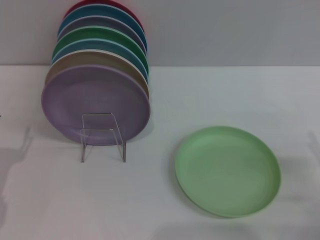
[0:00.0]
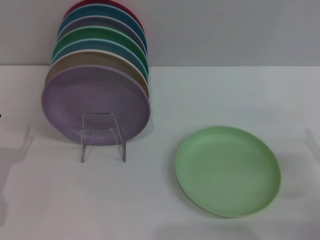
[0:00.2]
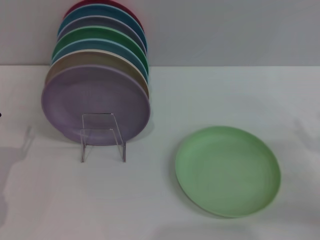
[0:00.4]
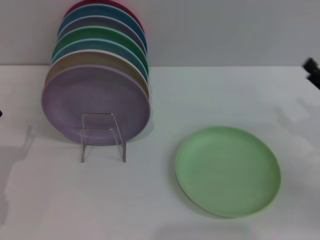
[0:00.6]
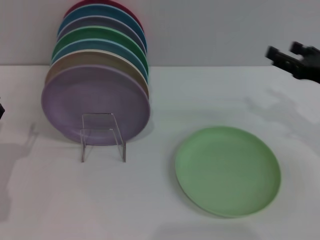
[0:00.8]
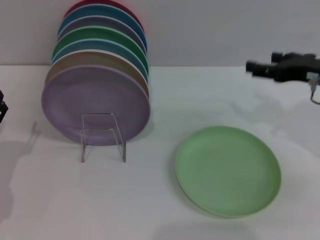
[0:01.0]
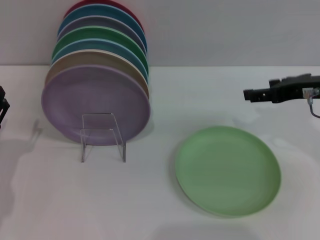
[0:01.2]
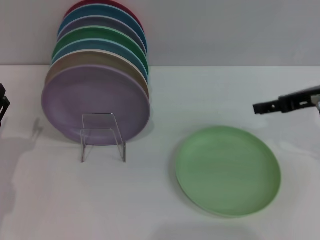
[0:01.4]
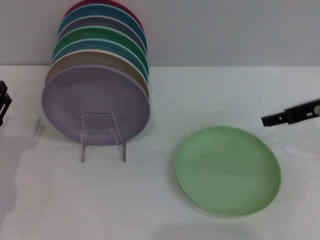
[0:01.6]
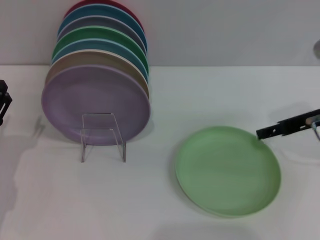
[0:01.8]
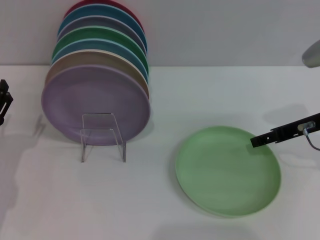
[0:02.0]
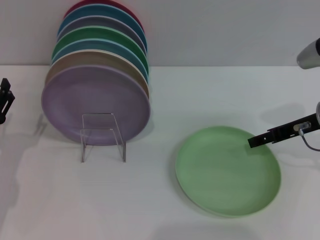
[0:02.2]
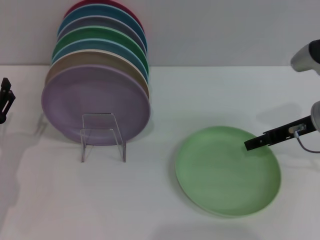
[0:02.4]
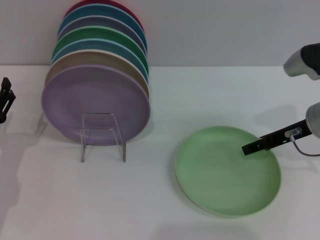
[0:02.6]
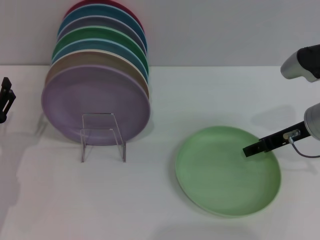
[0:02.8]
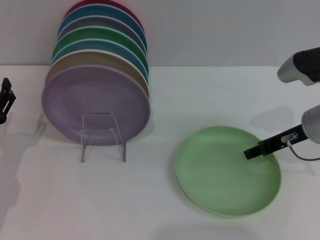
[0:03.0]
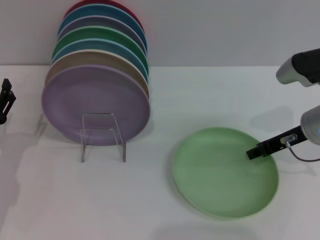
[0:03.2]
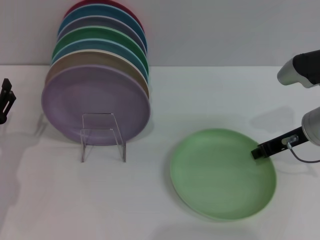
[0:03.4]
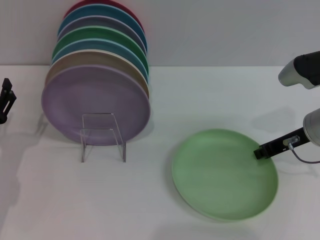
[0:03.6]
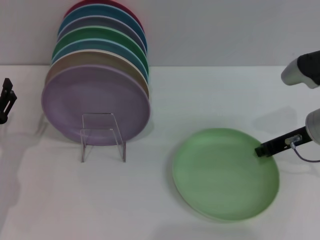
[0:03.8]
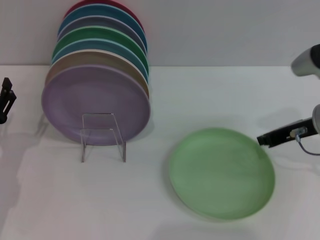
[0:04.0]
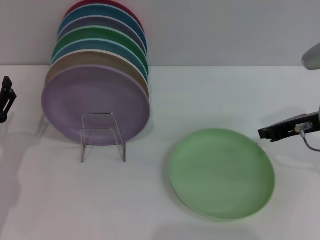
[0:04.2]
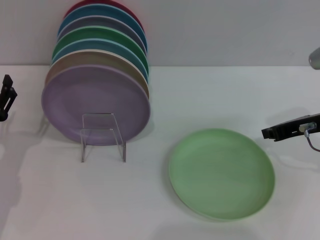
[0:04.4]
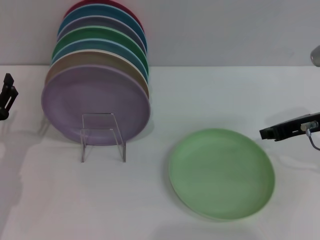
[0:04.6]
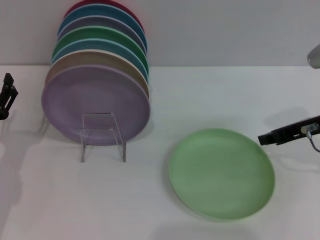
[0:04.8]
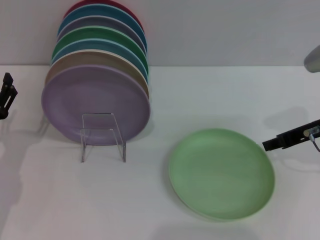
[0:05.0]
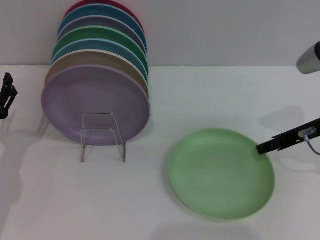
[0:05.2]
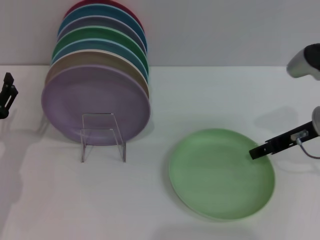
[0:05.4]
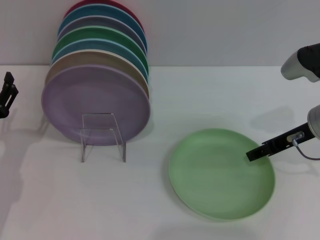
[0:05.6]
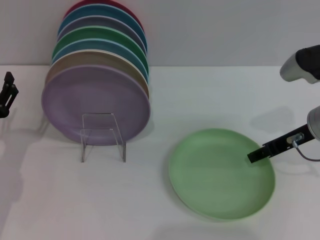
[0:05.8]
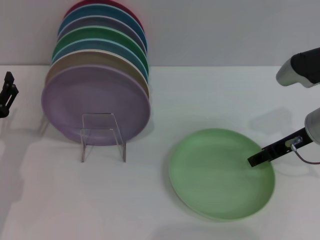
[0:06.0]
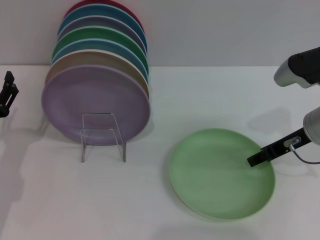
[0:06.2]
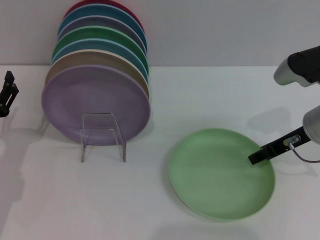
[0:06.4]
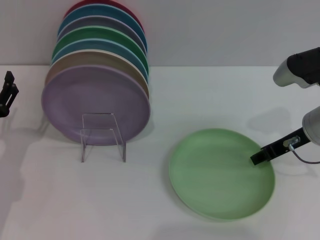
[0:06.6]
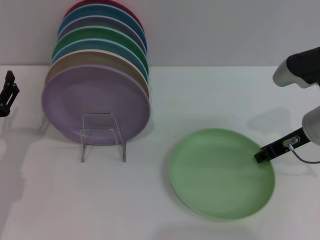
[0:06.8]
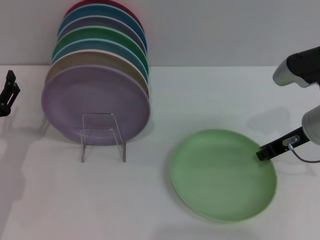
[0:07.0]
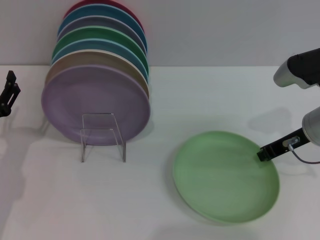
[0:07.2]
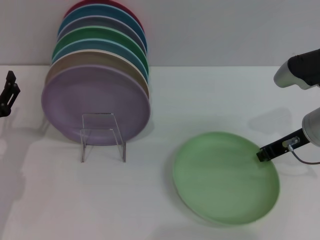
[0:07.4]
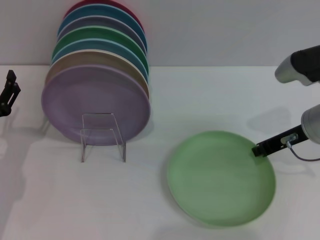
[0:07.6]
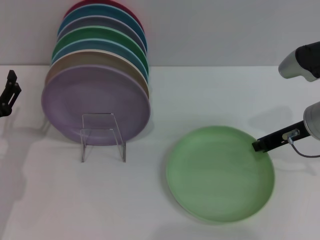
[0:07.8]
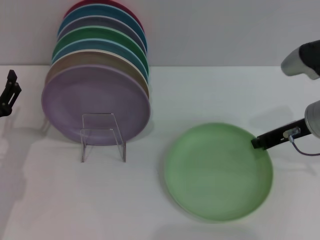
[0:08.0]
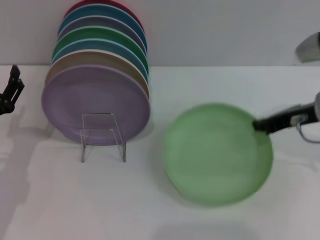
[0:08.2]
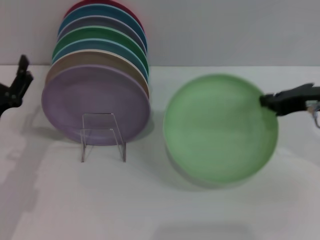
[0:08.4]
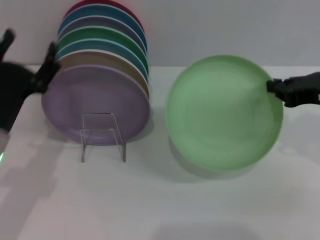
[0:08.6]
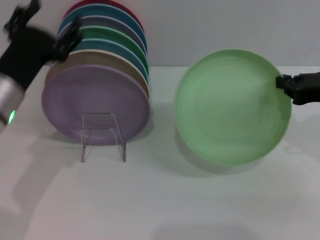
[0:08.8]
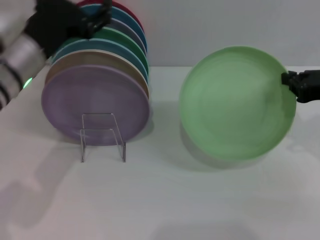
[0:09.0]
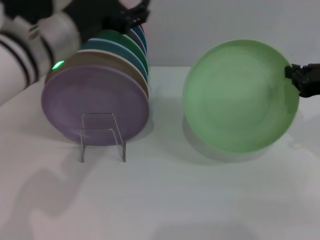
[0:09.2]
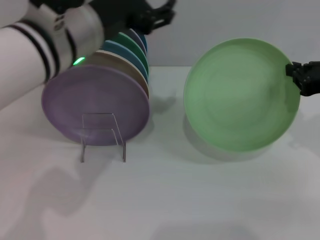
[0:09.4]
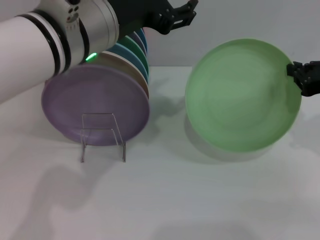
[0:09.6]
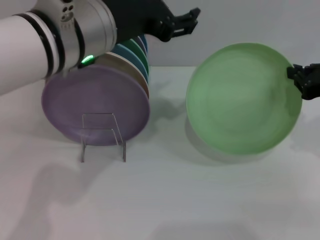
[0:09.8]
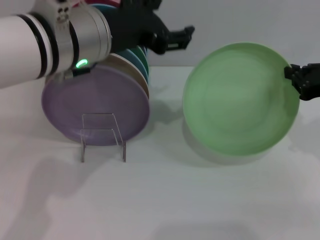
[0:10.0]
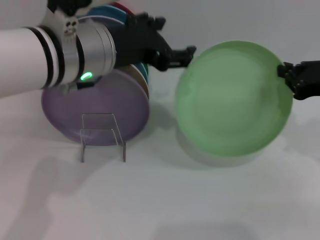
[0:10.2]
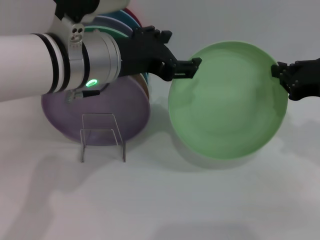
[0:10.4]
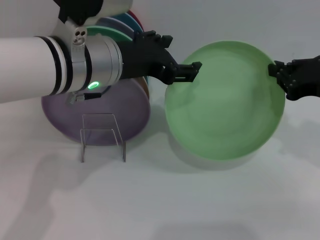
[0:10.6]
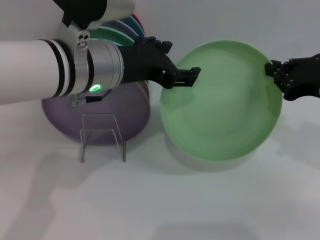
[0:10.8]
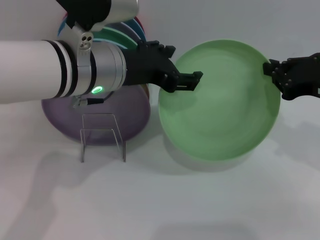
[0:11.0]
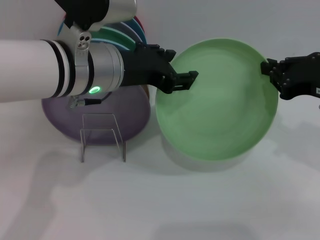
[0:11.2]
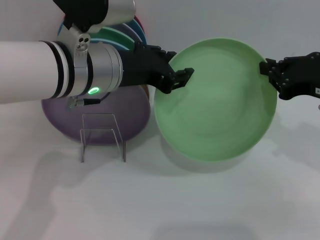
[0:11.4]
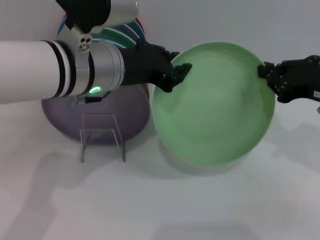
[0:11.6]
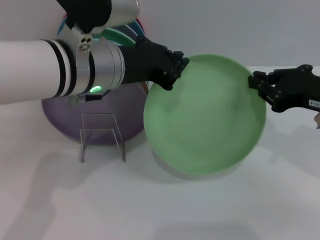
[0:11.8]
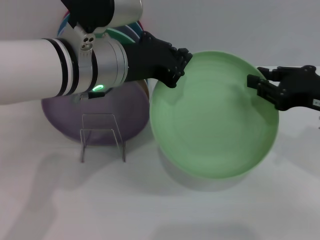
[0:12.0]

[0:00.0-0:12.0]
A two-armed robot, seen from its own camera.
Task of the whole recording: Grip the plate with one hand, pass it to the other, then set it on the shelf.
Step, 0:00.0 to 0:08.2: Pick up the plate with the right gripper.
0:00.0 to 0:01.6: The right gripper is displaced forward, upward and to the left by some 20 cm.
0:01.6 to 0:03.0: The right gripper goes about 5 cm downward.
0:03.0 to 0:04.4: The right gripper closes its fingers.
0:04.4 to 0:06.0: The right gripper opens up.
0:06.0 to 0:07.6: The right gripper closes up.
0:07.6 to 0:09.0: The right gripper heads to the right, covering some 5 cm. Meanwhile the left gripper heads upward and to the right, covering approximately 15 cm.
0:09.0 to 0:10.4: The left gripper is displaced to the right by some 10 cm.
0:10.4 to 0:12.0: The left gripper closes its fingers.

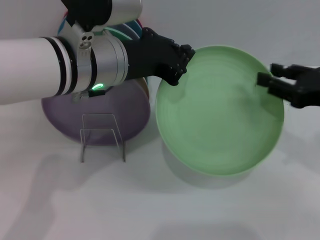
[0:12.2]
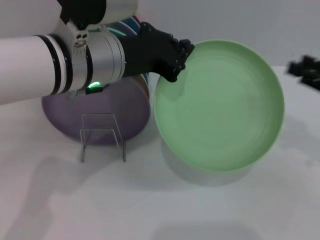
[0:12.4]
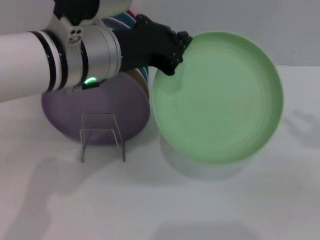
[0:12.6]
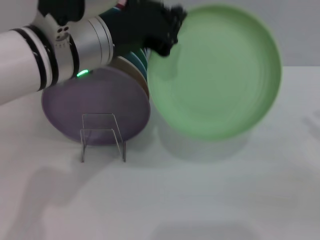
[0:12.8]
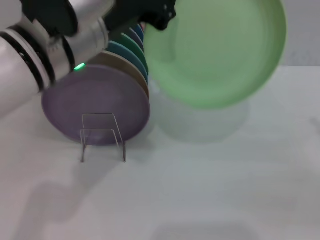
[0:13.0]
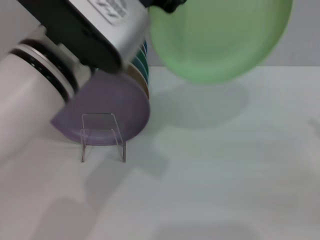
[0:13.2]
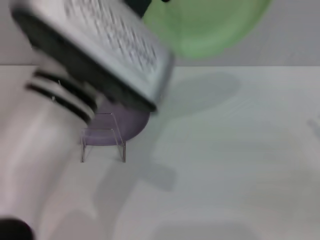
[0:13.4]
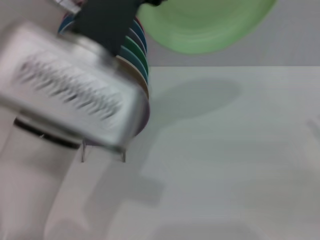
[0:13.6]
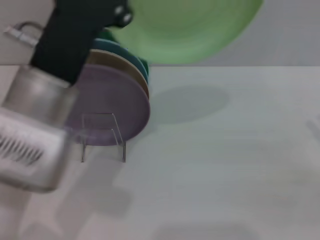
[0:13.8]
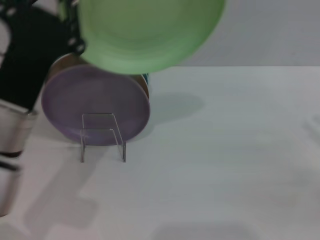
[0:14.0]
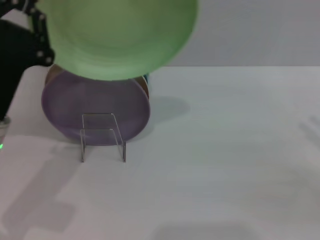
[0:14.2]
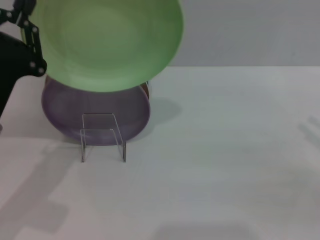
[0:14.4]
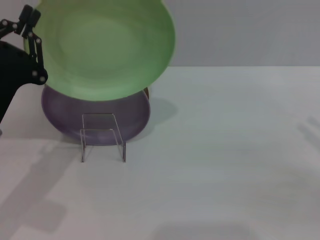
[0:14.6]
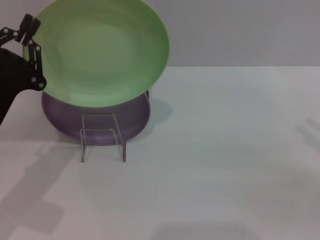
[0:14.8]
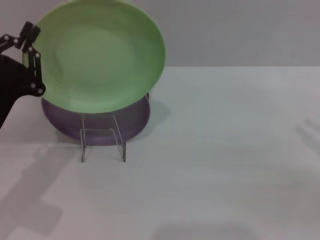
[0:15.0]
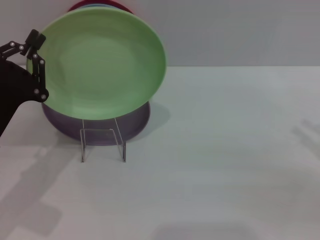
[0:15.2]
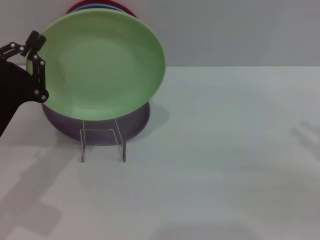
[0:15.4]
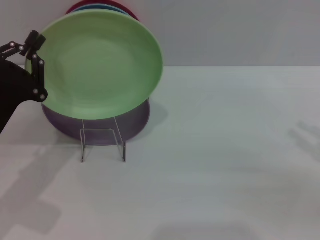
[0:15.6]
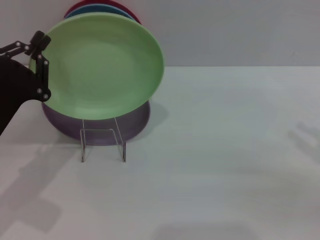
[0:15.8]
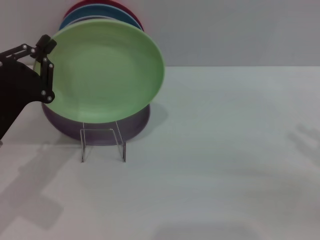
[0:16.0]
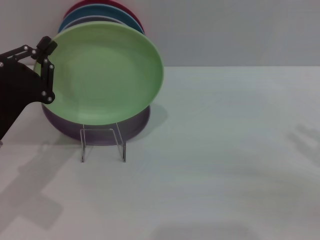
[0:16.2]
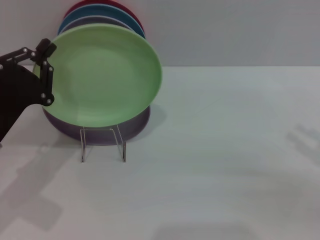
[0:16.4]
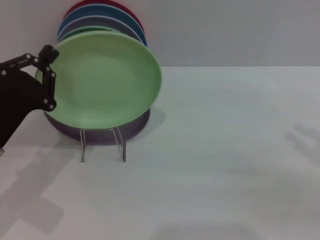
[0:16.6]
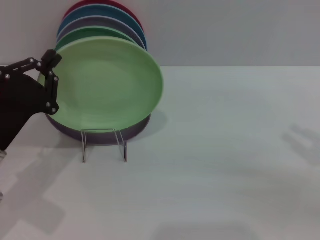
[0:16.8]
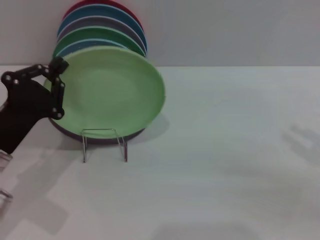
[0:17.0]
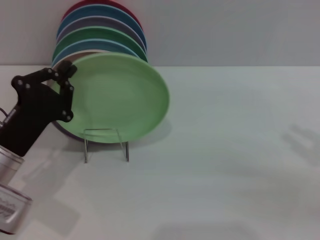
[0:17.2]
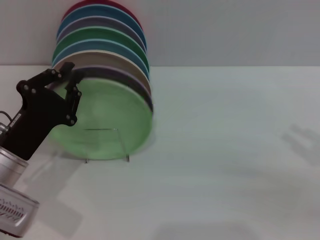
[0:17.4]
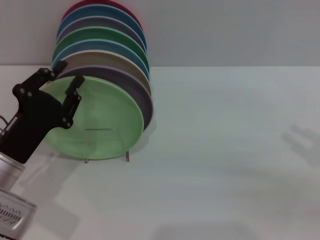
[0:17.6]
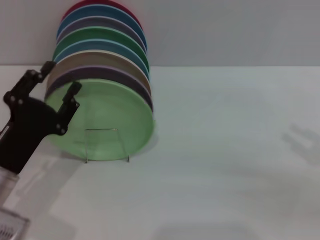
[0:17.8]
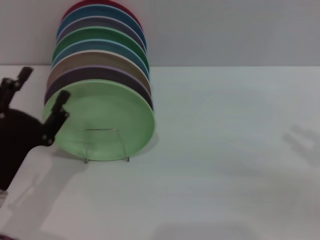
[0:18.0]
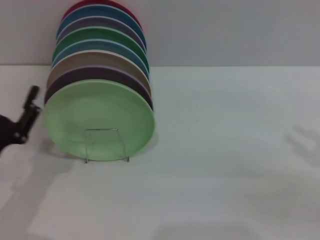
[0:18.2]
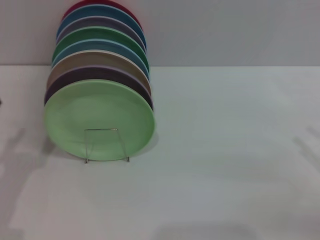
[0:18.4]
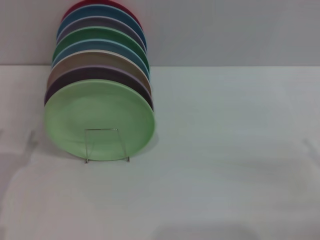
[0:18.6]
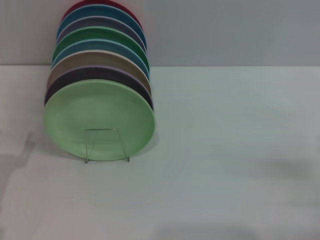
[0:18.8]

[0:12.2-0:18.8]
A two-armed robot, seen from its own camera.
Task of the whole recording: Grip the plate with one hand, pass it to the other, then set it on the shelf.
Step, 0:12.6 to 0:17.8: Place the plate on the shelf with the left gripper.
0:12.2 to 0:13.8: The left gripper shifts about 5 cm backward. Meanwhile the right gripper moves to the right and backward, roughly 10 cm.
0:13.8 to 0:15.4: The left gripper goes roughly 15 cm to the left and downward.
0:15.4 to 0:17.2: The grippers move only a little.
0:17.2 to 0:18.8: The left gripper moves to the left and backward, approximately 10 cm, and opens its fingers. The right gripper shifts about 10 cm downward.

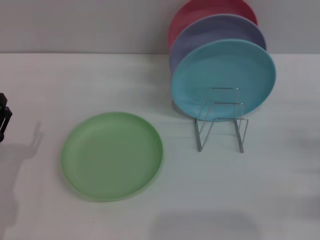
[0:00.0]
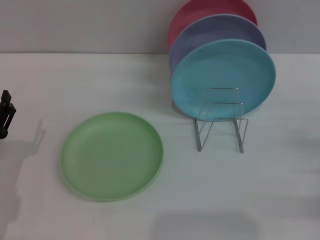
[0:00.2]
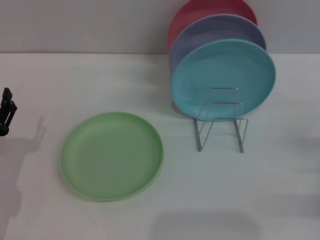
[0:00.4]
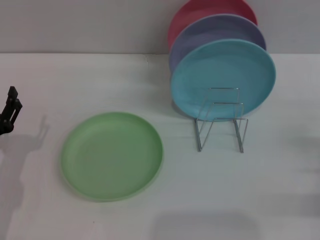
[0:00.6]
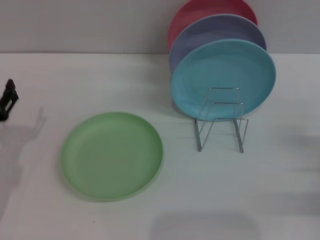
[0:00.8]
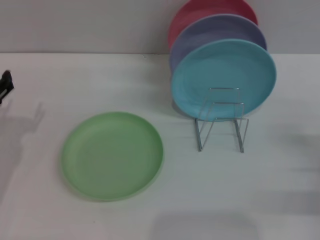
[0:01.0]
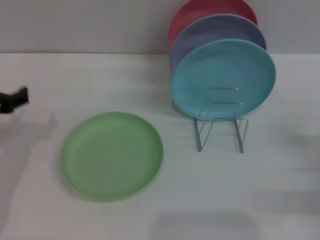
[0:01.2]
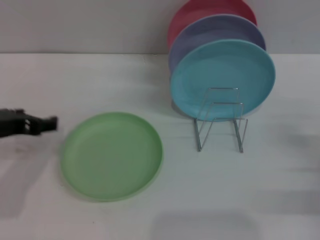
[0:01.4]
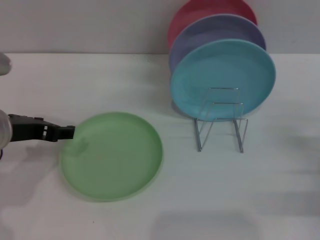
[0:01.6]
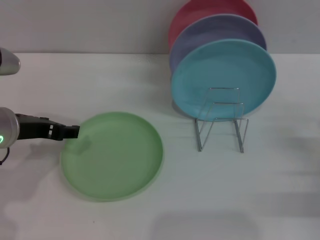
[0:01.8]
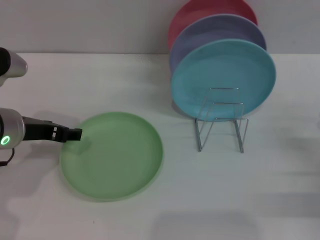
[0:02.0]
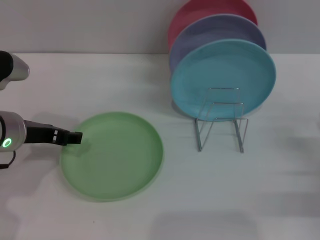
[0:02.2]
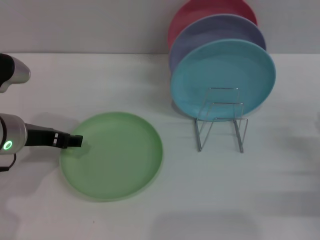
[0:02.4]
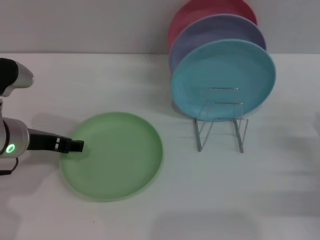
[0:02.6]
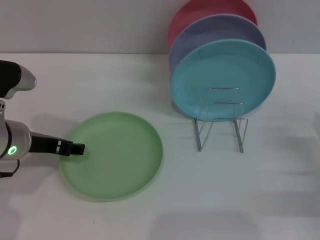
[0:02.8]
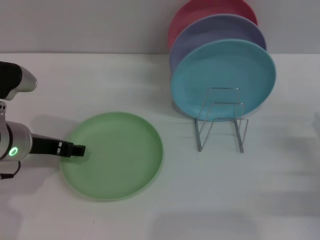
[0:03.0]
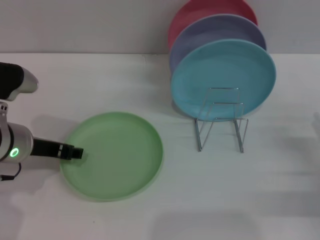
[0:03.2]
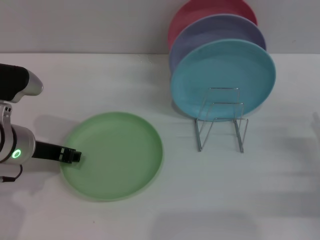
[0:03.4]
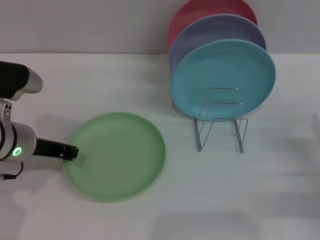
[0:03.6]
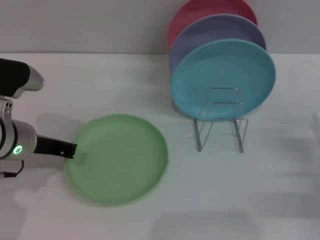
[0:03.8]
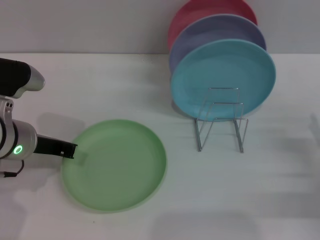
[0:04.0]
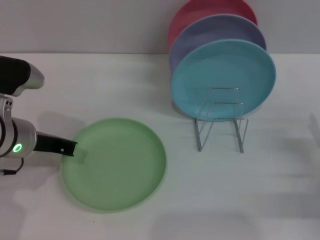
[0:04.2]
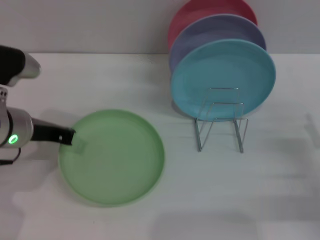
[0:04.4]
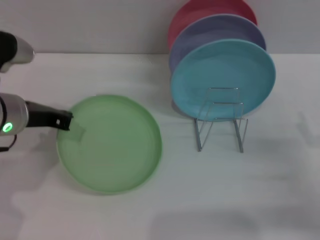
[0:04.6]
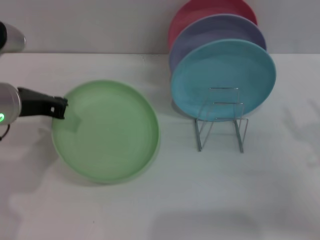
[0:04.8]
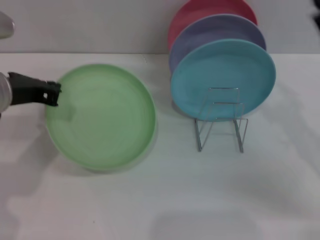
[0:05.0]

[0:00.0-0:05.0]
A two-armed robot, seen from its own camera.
Task of the whole recording: Grip the plate with one hand, pass it to the other, then set it on the shelf.
Step, 0:00.0 to 0:05.0: Pick up the plate with the left gripper.
0:00.0 to 0:01.6: The left gripper moves upward, forward and to the right, roughly 15 cm.
0:01.6 to 0:03.4: The grippers stay close to where they were, moving slightly.
0:03.4 to 0:05.0: The right gripper travels upward, to the left and forward by approximately 15 cm; the left gripper is displaced upward by about 10 cm, and closes up.
